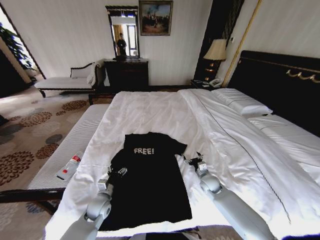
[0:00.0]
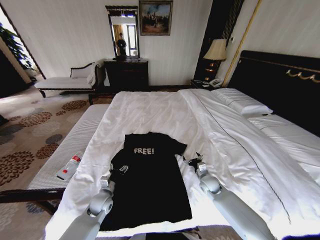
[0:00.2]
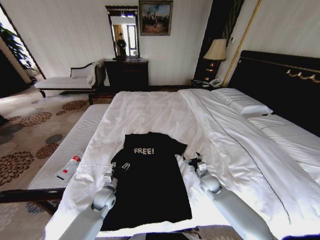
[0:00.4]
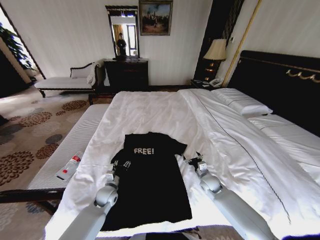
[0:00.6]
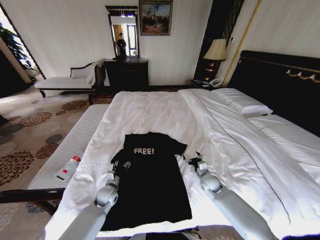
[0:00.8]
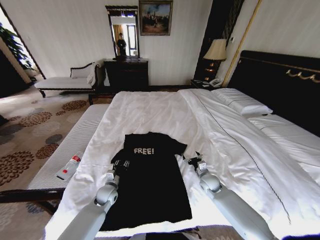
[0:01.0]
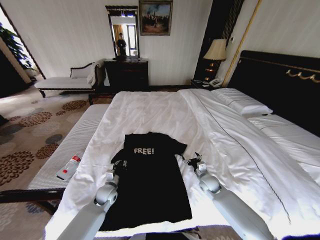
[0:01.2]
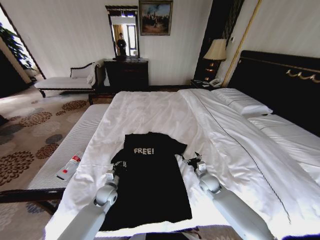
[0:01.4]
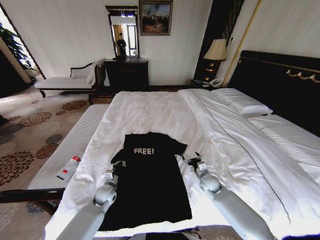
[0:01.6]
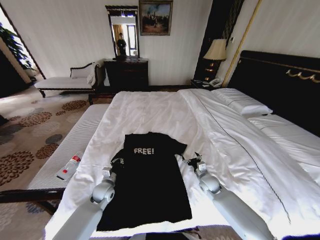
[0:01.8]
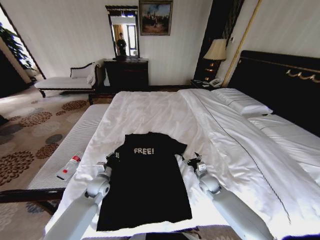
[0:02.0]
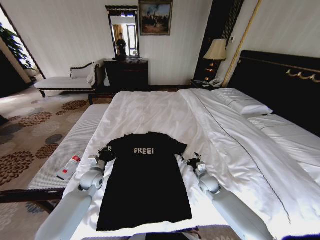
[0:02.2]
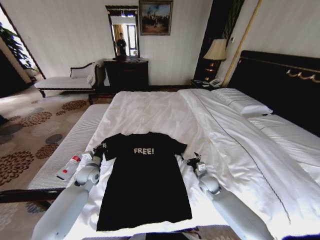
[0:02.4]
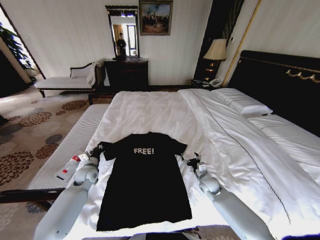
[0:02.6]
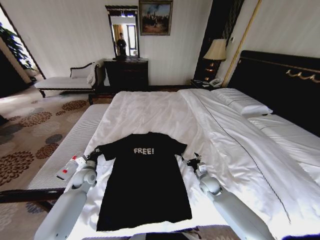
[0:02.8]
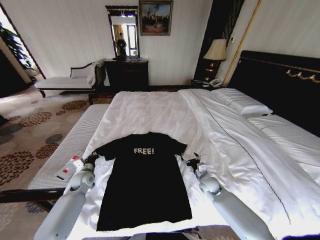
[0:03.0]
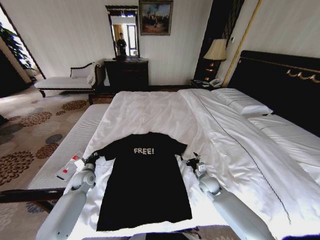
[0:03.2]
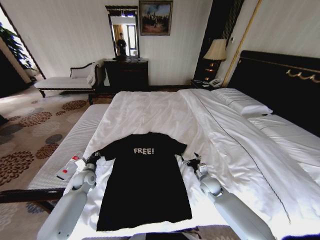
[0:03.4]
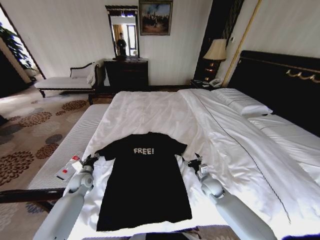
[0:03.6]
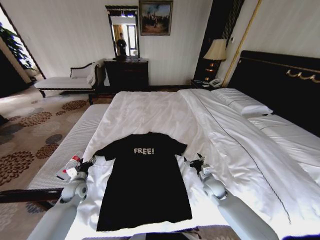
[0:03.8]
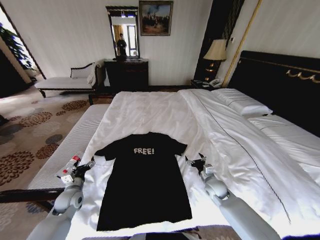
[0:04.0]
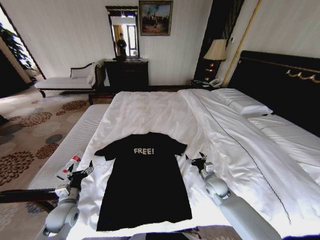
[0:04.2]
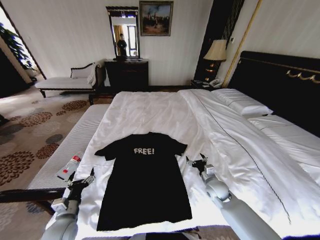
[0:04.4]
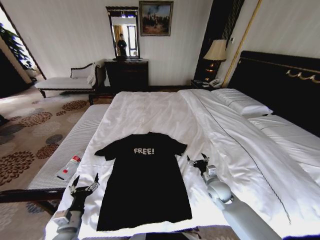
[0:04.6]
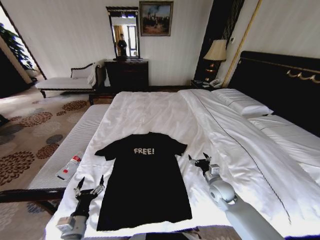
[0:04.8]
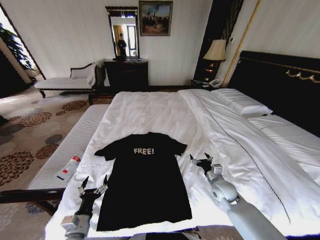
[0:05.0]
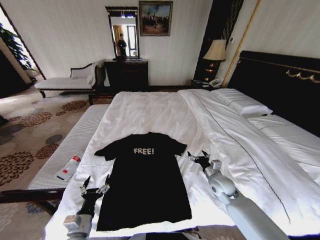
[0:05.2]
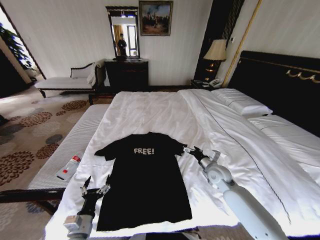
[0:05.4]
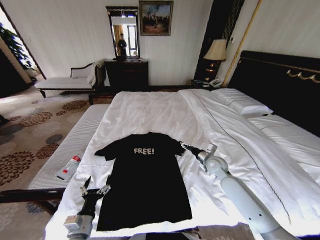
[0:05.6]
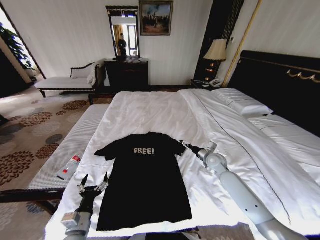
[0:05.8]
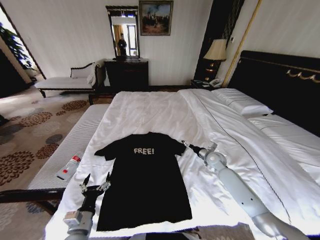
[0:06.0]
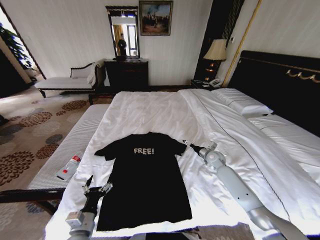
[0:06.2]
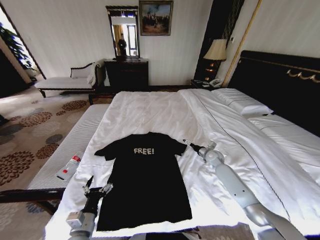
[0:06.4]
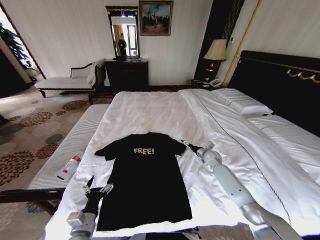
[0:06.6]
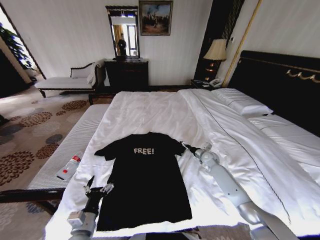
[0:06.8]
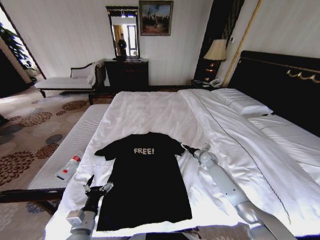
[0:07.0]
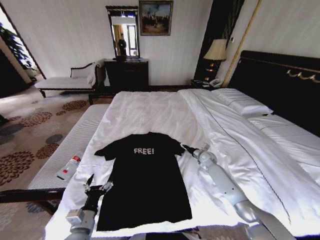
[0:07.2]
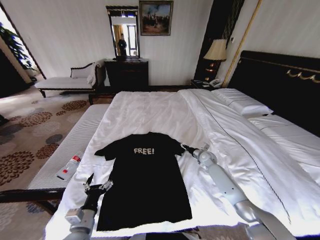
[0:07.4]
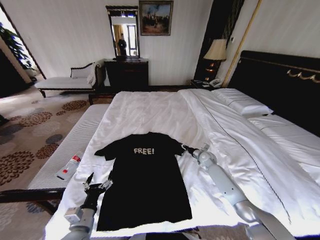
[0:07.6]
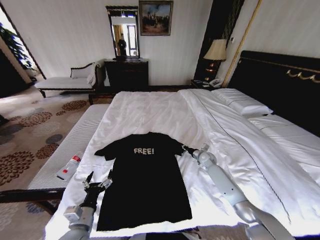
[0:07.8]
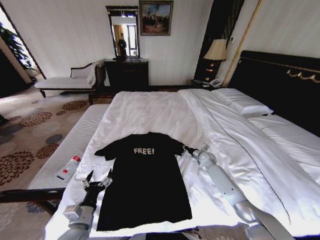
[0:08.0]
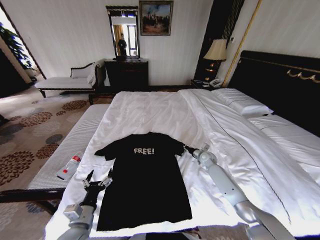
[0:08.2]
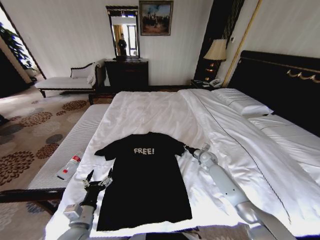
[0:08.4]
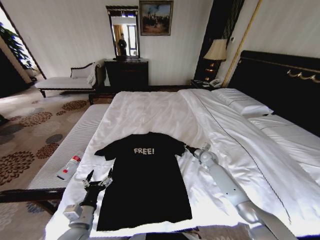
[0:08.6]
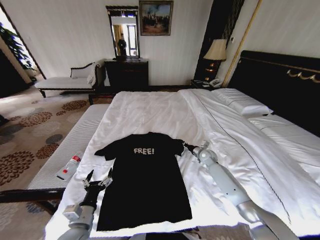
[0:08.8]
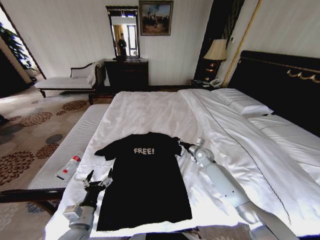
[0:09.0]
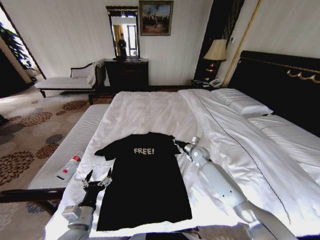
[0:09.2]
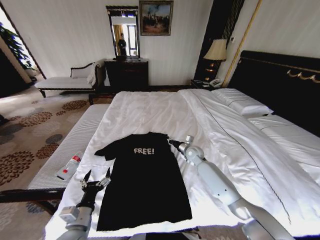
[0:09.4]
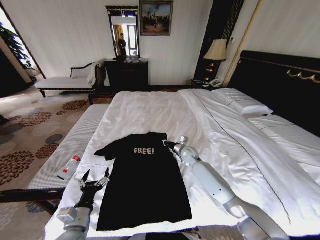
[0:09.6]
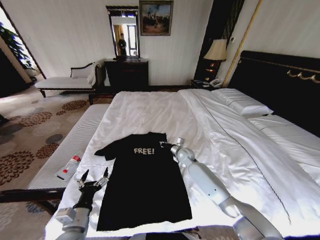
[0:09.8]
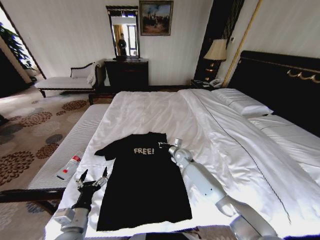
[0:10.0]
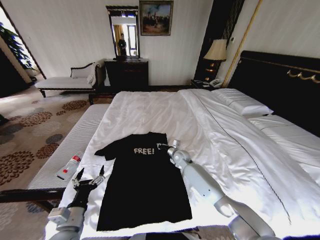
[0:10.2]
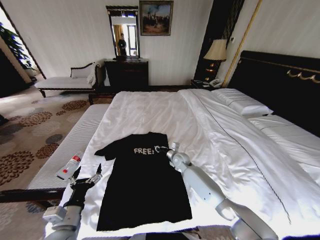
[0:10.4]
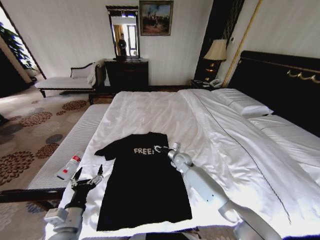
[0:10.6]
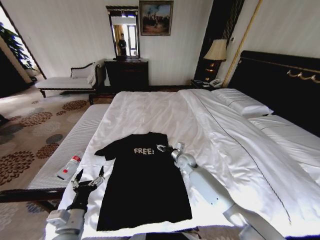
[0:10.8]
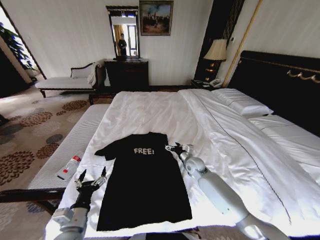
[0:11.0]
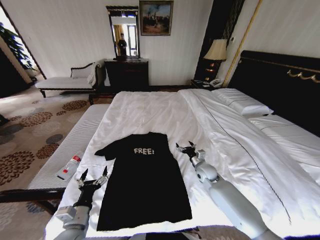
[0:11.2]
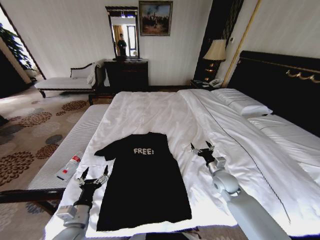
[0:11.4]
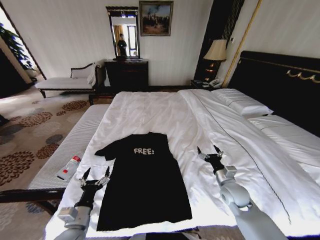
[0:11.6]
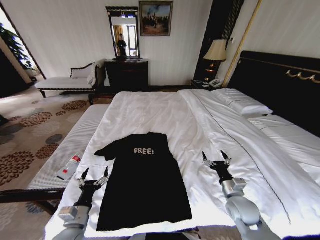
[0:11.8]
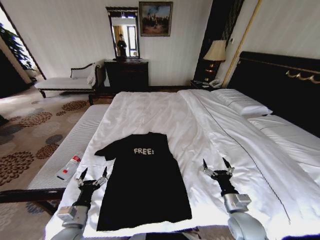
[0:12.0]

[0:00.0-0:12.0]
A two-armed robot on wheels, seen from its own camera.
Task of the whole recording: Fold the clothes on the bed.
0:00.0 to 0:01.6: The left gripper goes some 5 cm forward, and closes its fingers.
0:01.6 to 0:03.0: The left gripper goes about 15 cm to the left, upward and forward.
0:03.0 to 0:04.4: The left gripper is displaced backward by some 20 cm, and opens.
0:04.4 to 0:06.0: The right gripper moves forward, roughly 15 cm. Meanwhile the left gripper is displaced to the right by approximately 10 cm.
0:06.0 to 0:07.6: The right gripper travels downward by about 5 cm, and closes its fingers.
0:07.6 to 0:09.0: The right gripper changes place by roughly 5 cm, and closes.
0:09.0 to 0:10.4: The right gripper is displaced to the left by about 15 cm.
0:10.4 to 0:12.0: The right gripper travels backward and to the right by approximately 35 cm, and opens.

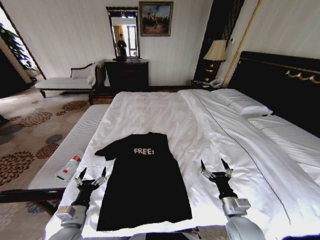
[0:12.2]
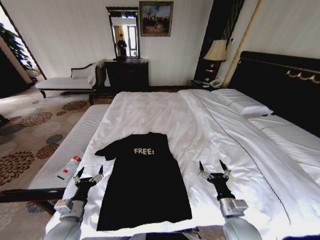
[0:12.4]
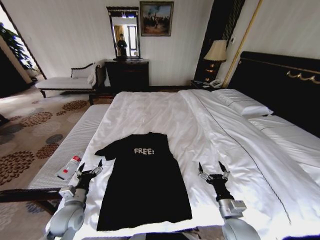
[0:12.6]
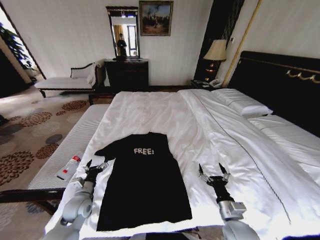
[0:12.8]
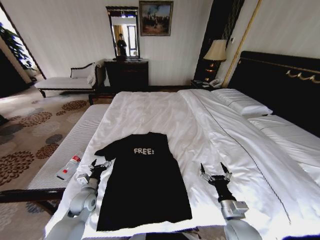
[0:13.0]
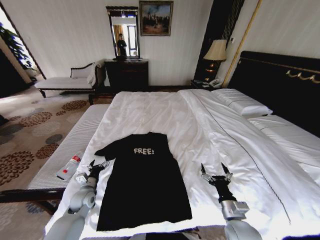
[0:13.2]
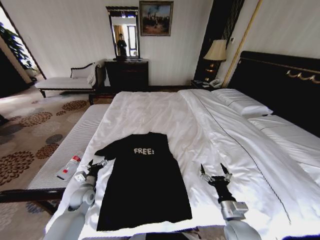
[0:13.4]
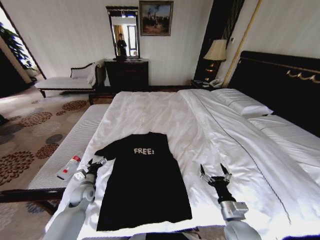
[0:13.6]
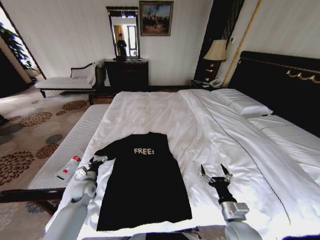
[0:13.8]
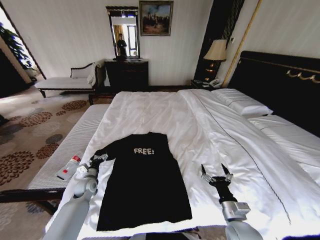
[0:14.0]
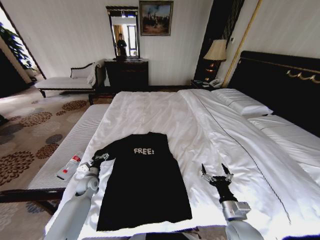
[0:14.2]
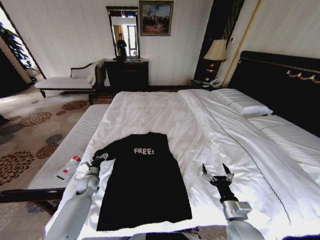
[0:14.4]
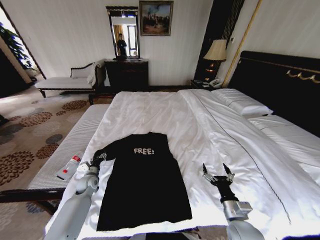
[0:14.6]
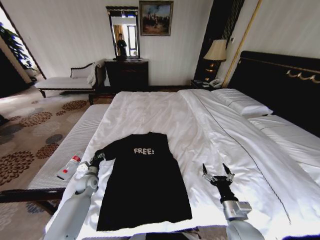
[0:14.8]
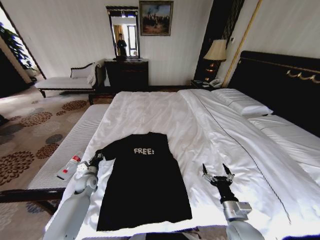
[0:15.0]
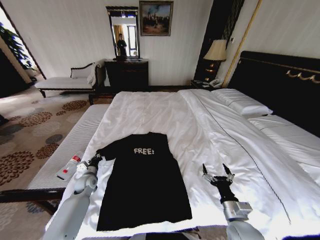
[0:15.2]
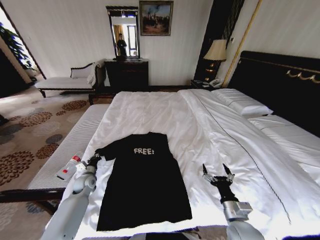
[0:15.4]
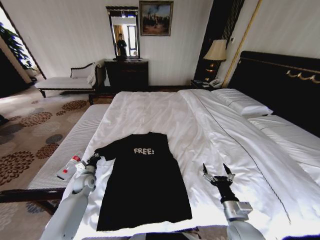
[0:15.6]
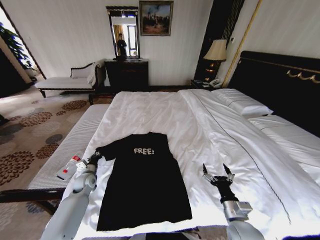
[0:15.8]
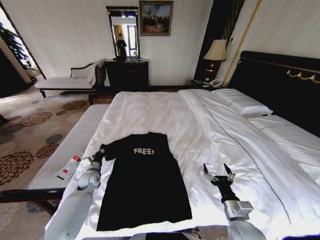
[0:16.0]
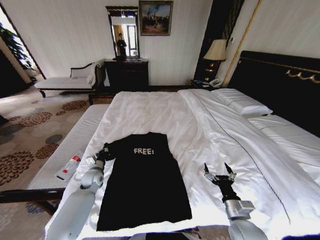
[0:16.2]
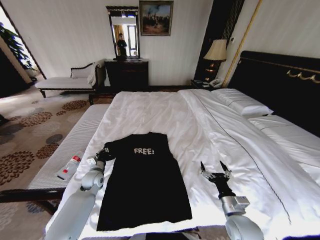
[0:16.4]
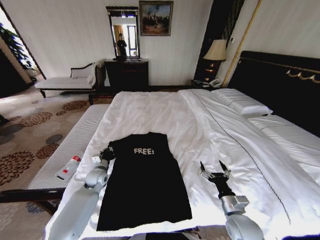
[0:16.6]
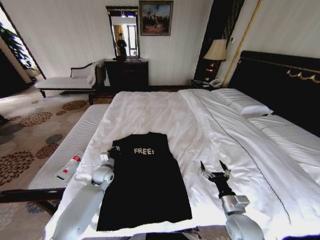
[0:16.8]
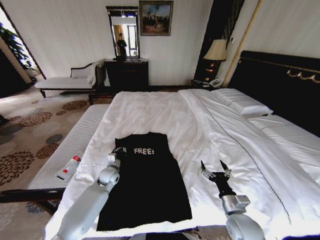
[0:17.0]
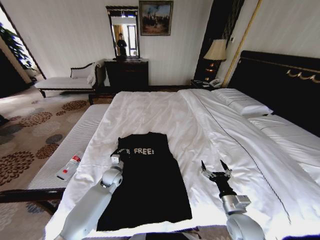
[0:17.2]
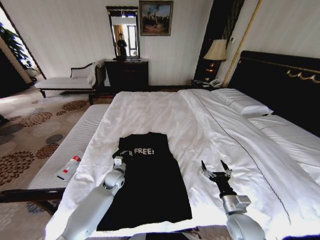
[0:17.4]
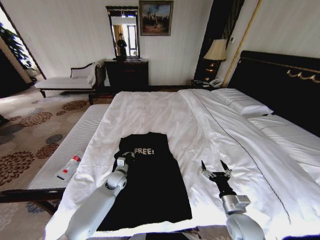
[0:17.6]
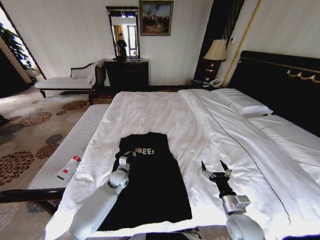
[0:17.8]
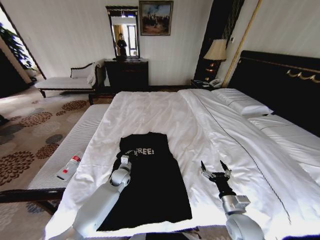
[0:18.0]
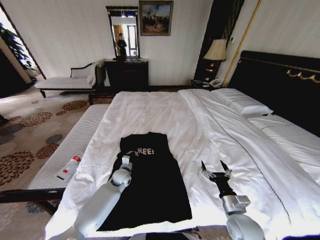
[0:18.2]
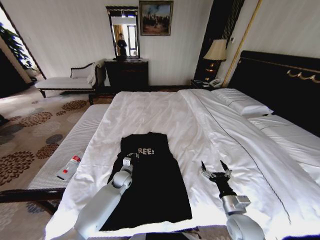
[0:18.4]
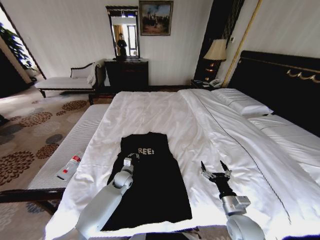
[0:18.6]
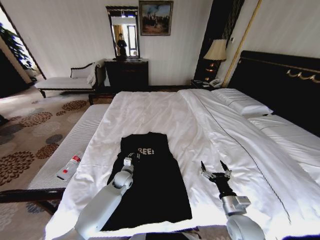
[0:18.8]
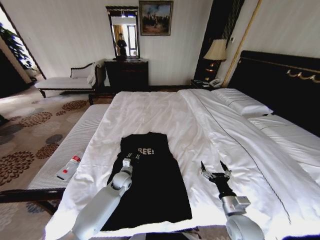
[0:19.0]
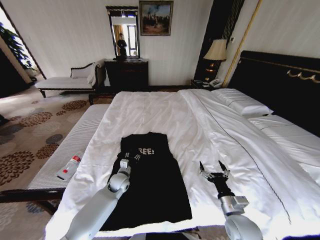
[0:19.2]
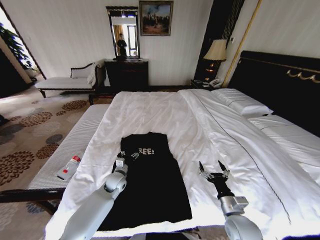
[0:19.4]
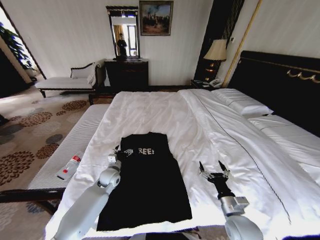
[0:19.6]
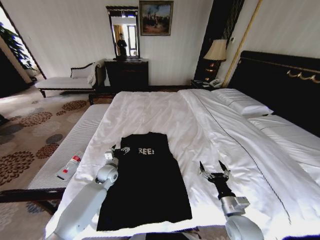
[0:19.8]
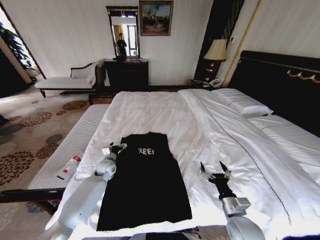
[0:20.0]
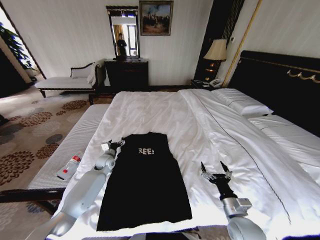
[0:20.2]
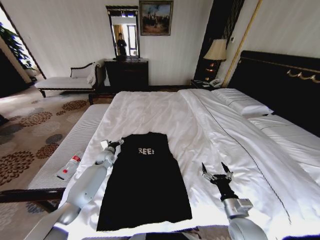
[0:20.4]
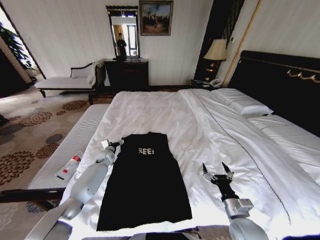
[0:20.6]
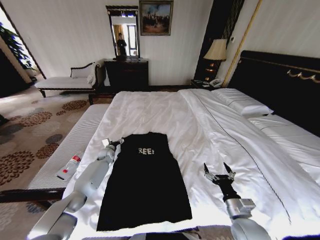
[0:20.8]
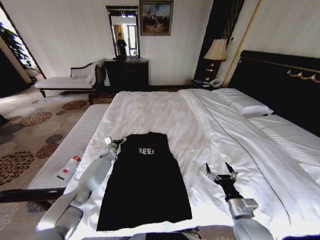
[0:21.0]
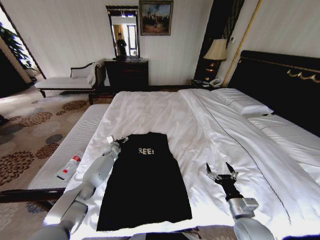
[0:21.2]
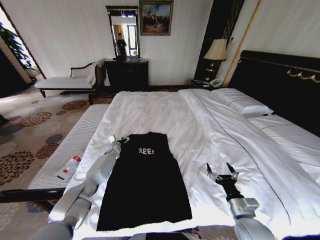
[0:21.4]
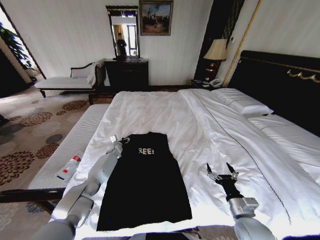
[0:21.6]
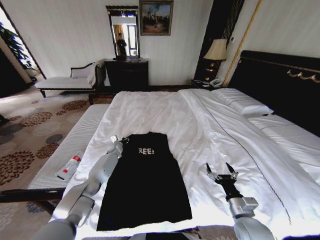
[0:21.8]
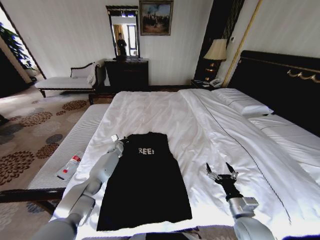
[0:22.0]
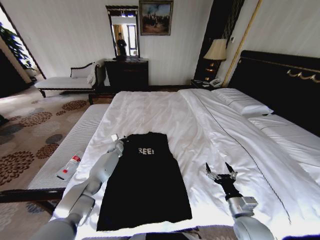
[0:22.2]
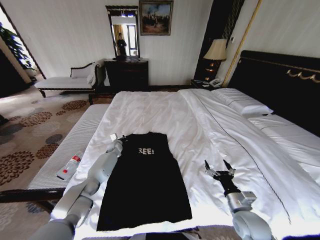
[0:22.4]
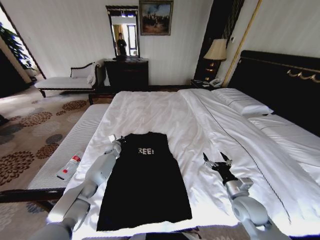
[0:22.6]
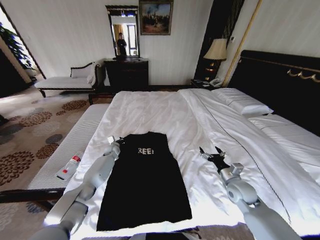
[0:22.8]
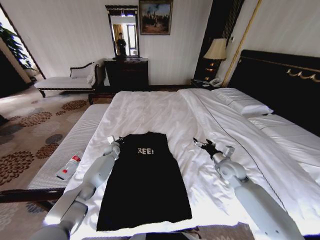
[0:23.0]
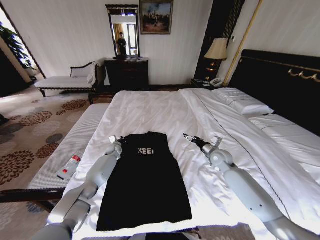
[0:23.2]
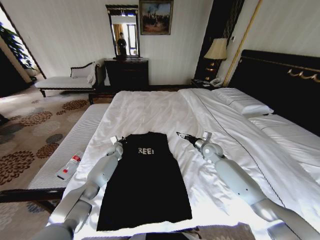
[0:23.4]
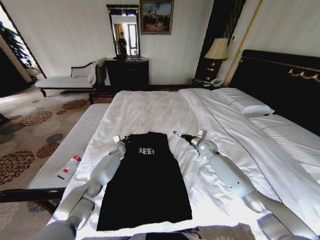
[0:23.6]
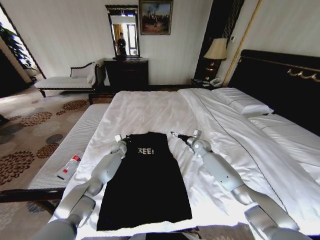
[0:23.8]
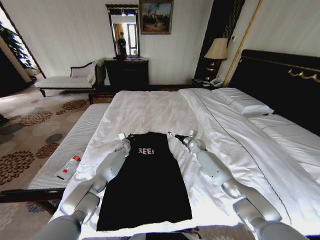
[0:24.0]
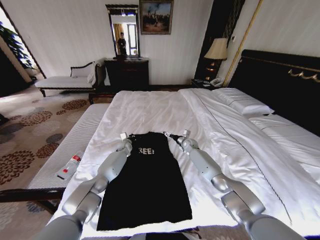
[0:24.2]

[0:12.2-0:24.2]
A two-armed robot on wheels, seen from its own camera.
Task of the whole recording: Fold the clothes on the bed.
0:12.2 to 0:13.8: The left gripper moves forward, some 20 cm.
0:13.8 to 0:15.2: The left gripper closes up.
0:15.2 to 0:16.6: The left gripper shifts about 5 cm to the right.
0:16.6 to 0:18.2: The left gripper shifts roughly 10 cm to the right.
0:18.2 to 0:19.8: The left gripper goes some 5 cm to the left, and opens up.
0:19.8 to 0:21.2: The left gripper shifts about 15 cm forward.
0:21.2 to 0:22.6: The left gripper closes its fingers, while the right gripper heads forward, covering some 5 cm.
0:22.6 to 0:24.2: The left gripper travels to the right by roughly 5 cm, while the right gripper travels forward by approximately 35 cm.
